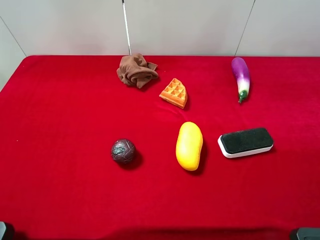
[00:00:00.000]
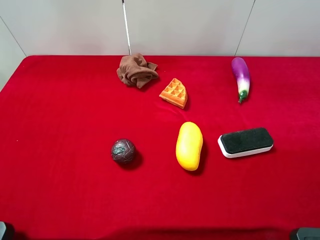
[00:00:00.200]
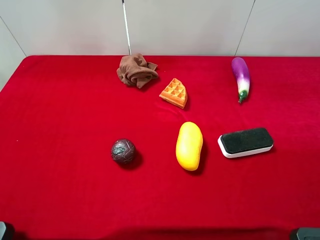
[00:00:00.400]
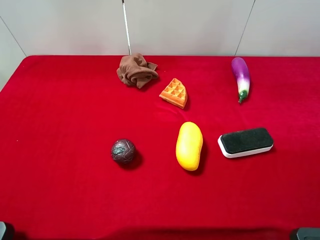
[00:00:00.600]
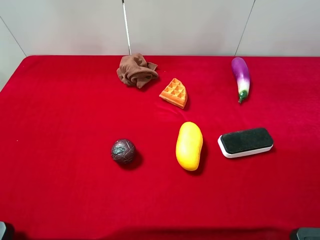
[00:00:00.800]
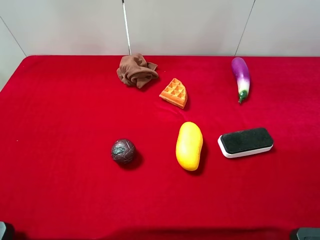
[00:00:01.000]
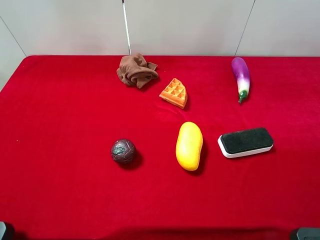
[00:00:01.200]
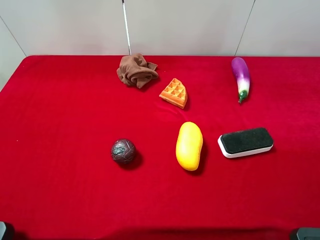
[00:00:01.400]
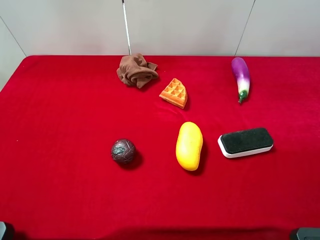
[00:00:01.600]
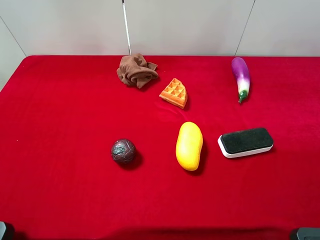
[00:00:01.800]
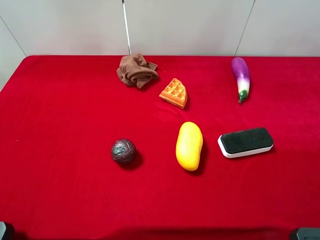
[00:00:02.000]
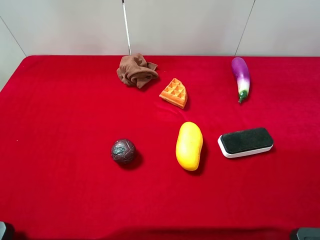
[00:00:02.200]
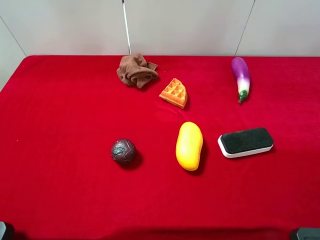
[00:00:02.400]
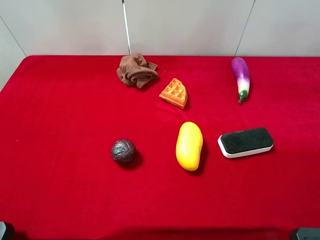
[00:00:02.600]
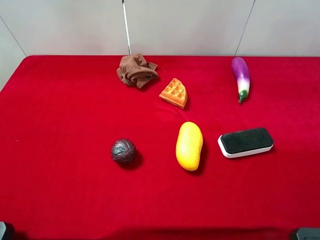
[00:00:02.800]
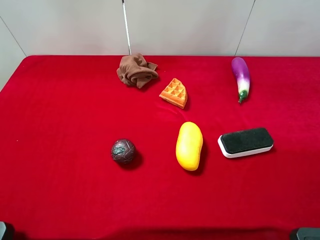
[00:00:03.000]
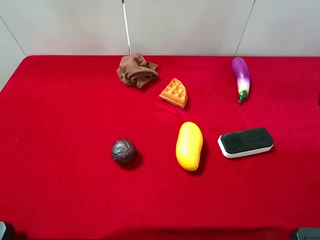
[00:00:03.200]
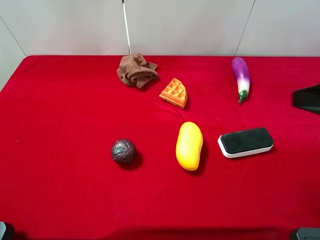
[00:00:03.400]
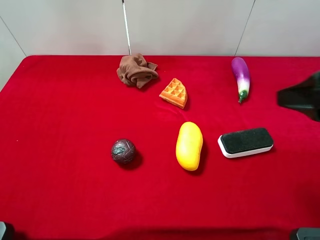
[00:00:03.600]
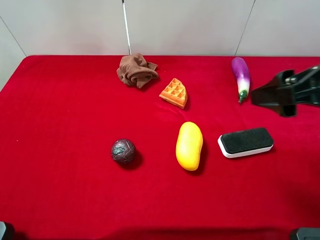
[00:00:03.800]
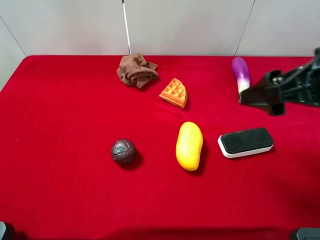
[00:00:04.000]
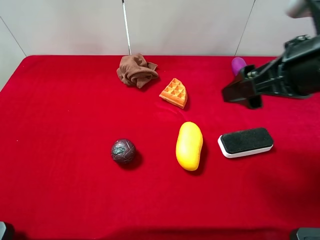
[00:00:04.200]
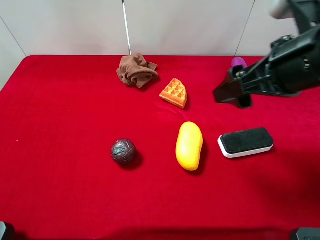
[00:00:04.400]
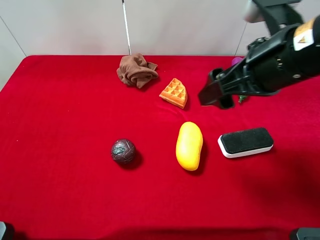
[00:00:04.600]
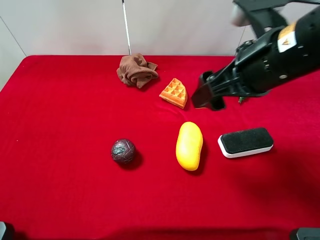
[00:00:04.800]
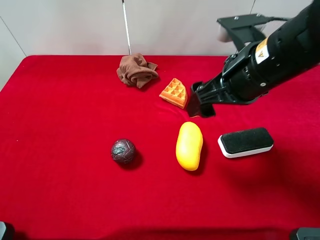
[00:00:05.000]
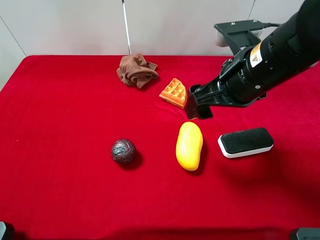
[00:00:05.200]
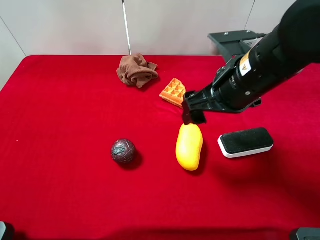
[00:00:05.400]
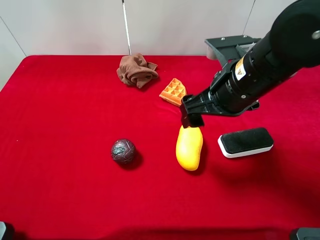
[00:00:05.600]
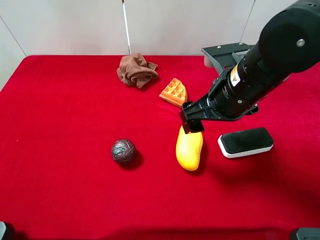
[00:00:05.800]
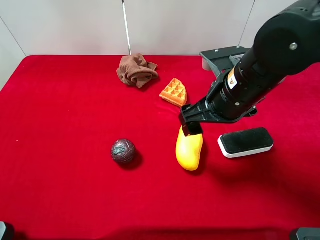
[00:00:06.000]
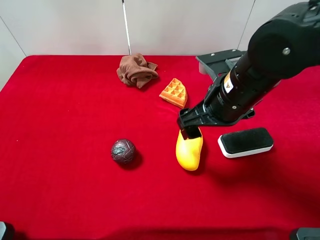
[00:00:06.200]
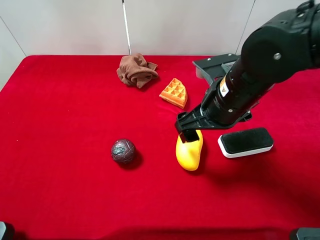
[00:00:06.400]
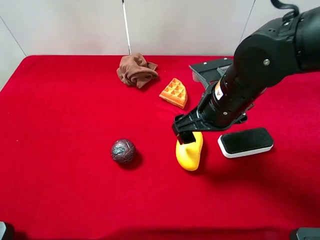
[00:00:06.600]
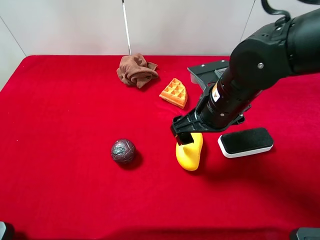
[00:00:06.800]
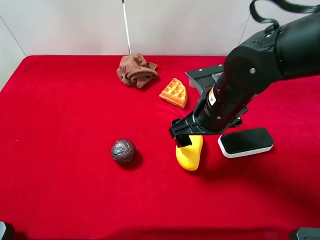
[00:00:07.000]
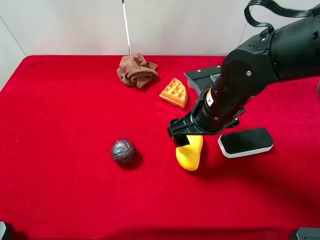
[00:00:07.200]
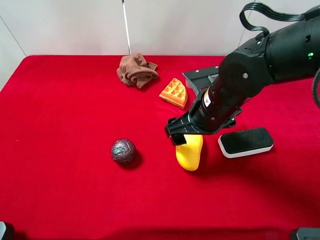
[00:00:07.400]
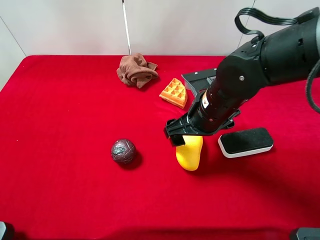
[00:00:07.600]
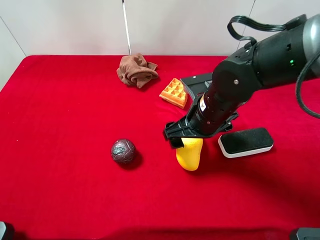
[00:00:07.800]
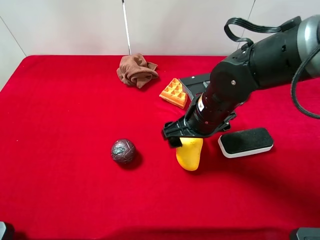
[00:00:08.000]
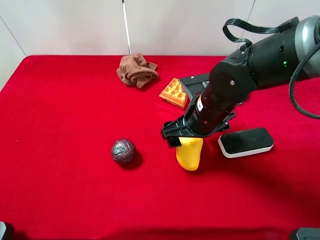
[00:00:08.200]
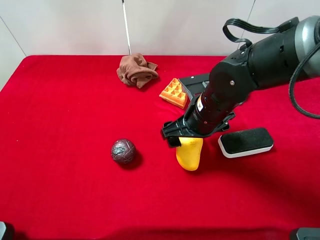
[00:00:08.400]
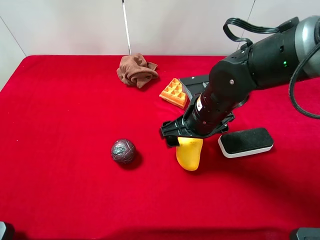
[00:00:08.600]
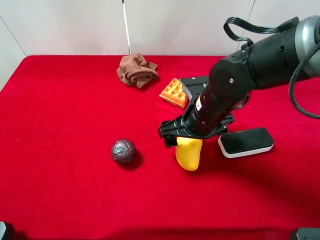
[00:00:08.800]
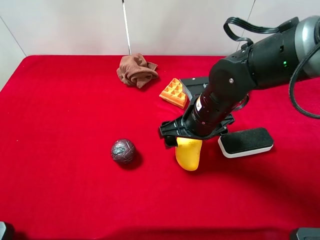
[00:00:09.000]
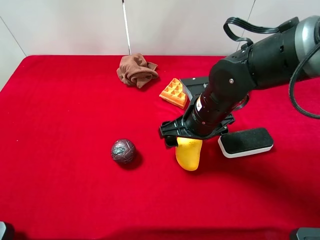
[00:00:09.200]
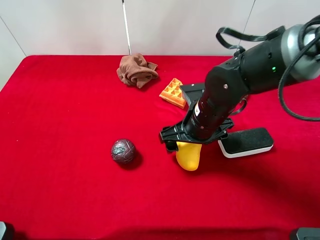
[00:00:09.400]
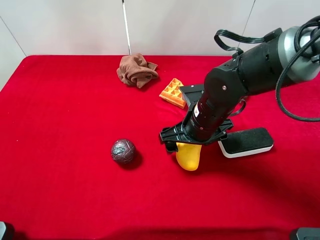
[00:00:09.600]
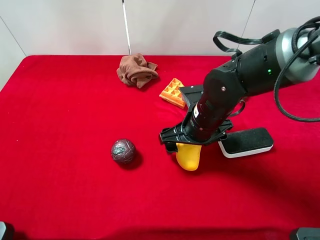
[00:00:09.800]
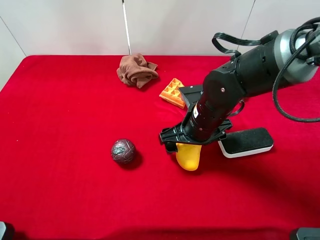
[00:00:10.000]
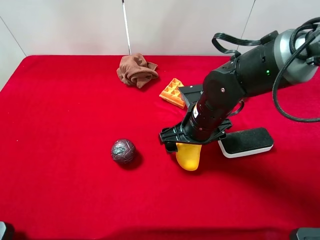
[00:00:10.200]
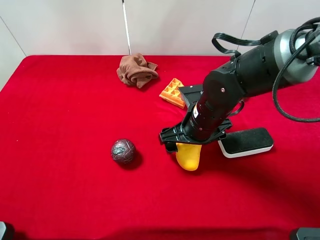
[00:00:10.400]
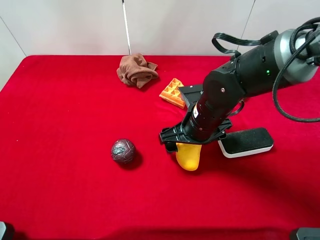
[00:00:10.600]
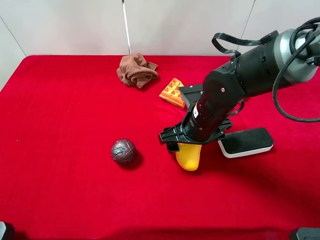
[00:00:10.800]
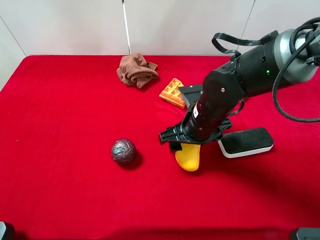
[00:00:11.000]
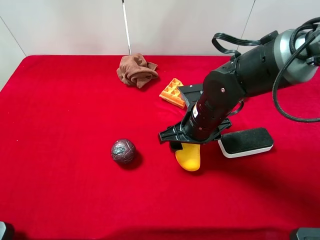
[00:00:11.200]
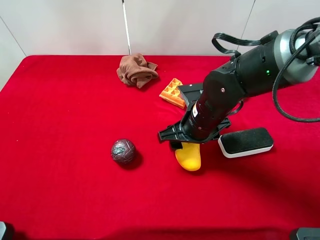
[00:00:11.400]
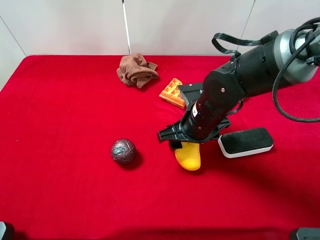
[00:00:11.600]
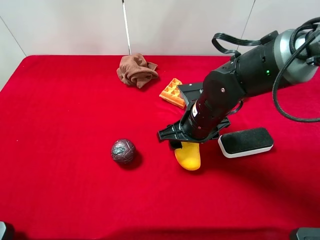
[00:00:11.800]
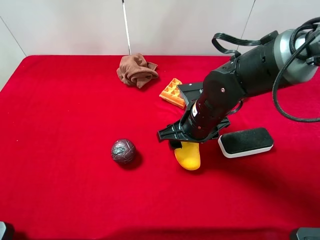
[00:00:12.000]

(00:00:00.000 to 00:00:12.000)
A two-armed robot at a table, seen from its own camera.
Task of the whole recording: the gripper move the object.
Step, 00:00:00.000 - 00:00:11.200: Grasp the mango with the right gripper.
00:00:00.000 - 00:00:01.600: Both grippers stay about where they are.
00:00:03.000 - 00:00:04.400: The right gripper is displaced to the left and forward by roughly 15 cm.
00:00:04.400 - 00:00:06.000: The right gripper moves downward and to the left, about 10 cm.
00:00:06.000 - 00:00:07.600: The right gripper is displaced downward by some 5 cm.
00:00:07.600 - 00:00:10.400: The grippers make only small movements.
00:00:10.400 - 00:00:12.000: The right gripper closes.

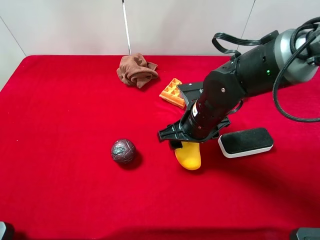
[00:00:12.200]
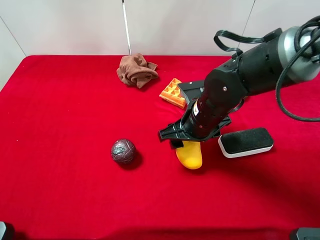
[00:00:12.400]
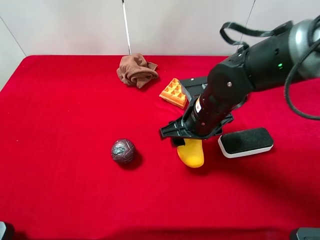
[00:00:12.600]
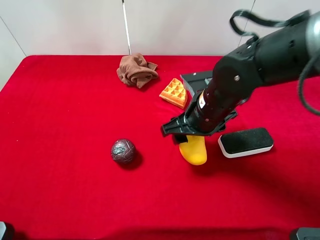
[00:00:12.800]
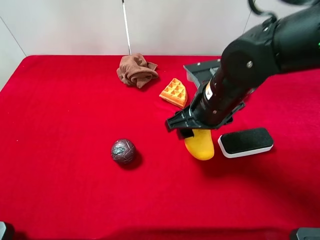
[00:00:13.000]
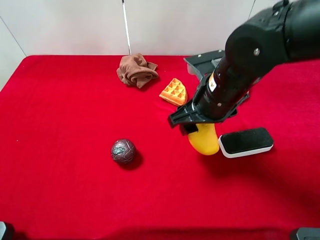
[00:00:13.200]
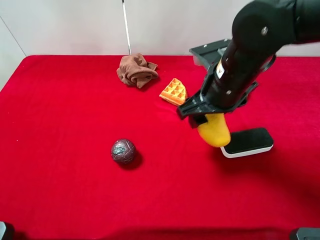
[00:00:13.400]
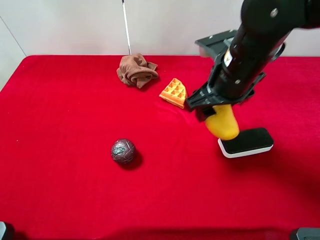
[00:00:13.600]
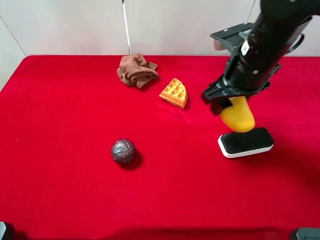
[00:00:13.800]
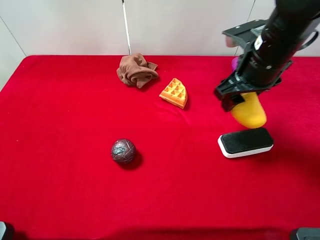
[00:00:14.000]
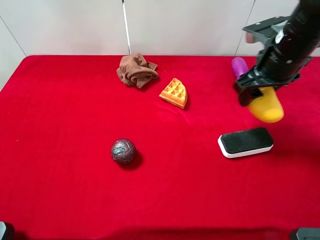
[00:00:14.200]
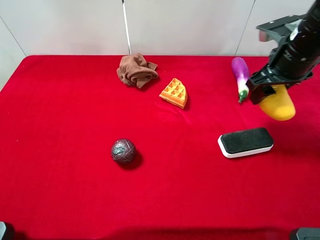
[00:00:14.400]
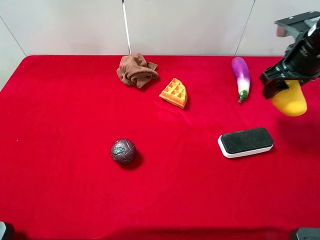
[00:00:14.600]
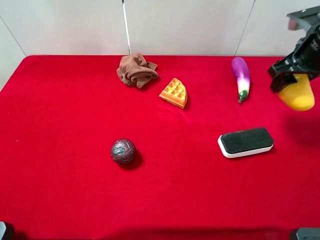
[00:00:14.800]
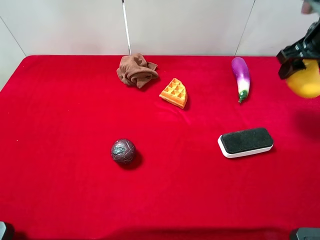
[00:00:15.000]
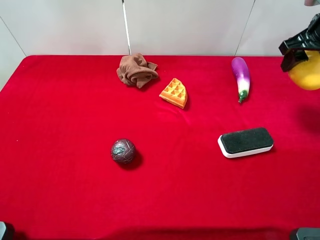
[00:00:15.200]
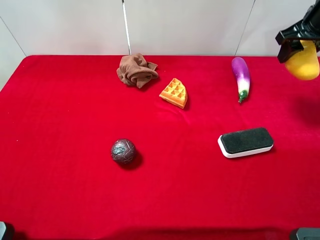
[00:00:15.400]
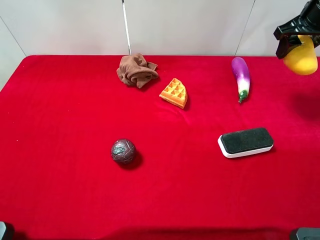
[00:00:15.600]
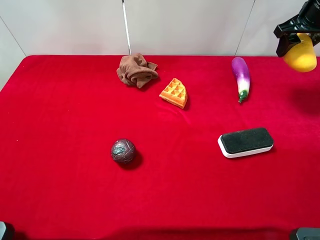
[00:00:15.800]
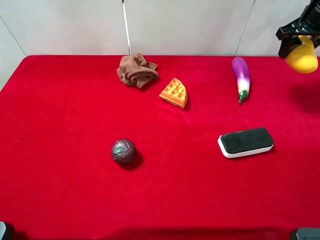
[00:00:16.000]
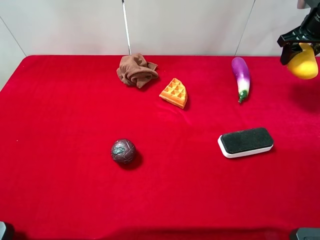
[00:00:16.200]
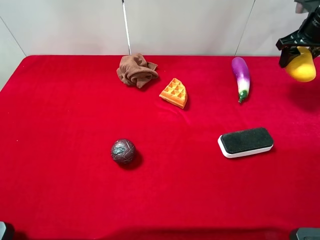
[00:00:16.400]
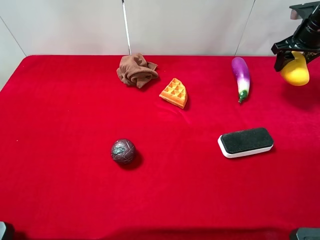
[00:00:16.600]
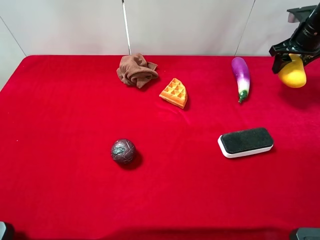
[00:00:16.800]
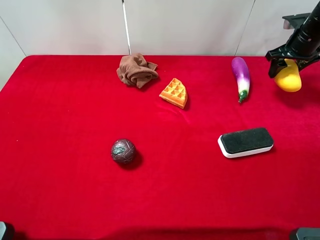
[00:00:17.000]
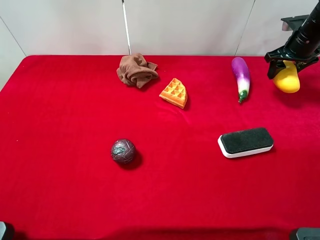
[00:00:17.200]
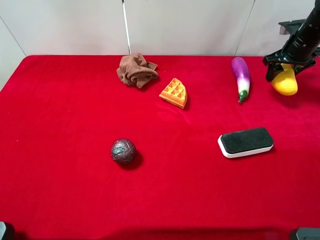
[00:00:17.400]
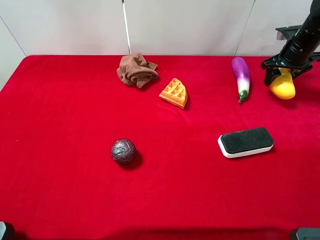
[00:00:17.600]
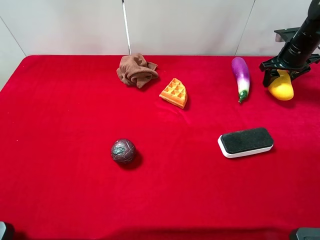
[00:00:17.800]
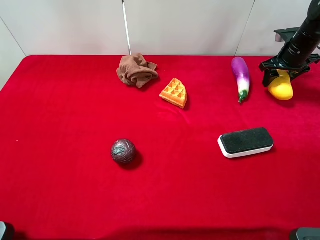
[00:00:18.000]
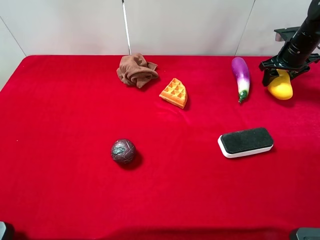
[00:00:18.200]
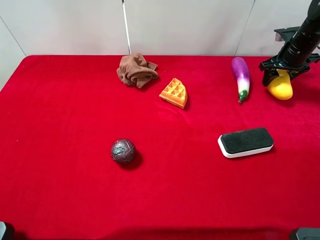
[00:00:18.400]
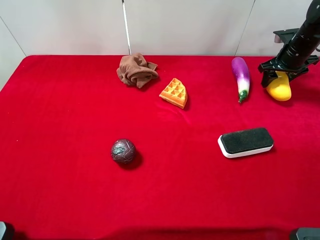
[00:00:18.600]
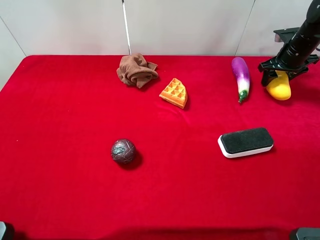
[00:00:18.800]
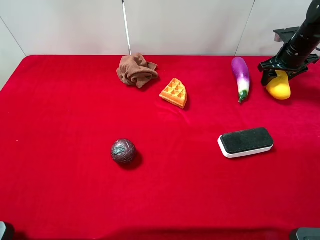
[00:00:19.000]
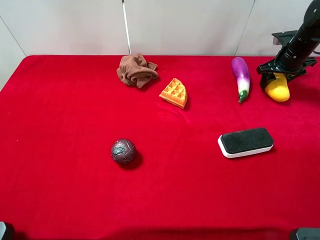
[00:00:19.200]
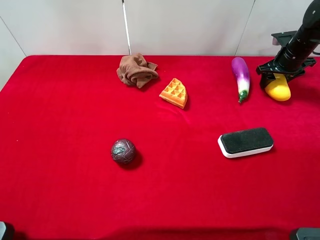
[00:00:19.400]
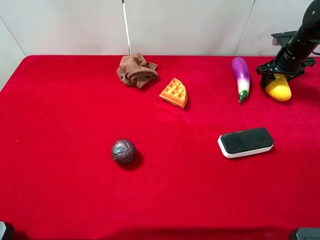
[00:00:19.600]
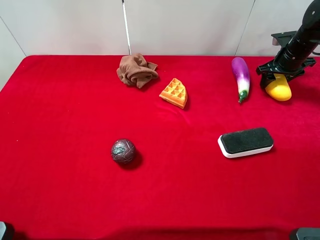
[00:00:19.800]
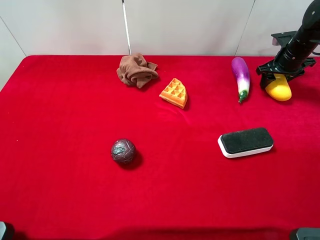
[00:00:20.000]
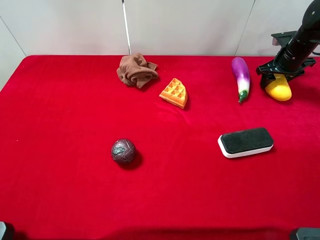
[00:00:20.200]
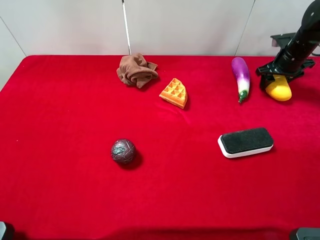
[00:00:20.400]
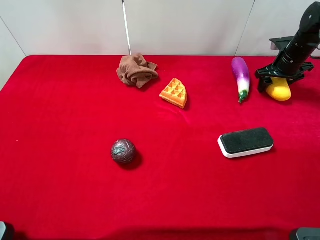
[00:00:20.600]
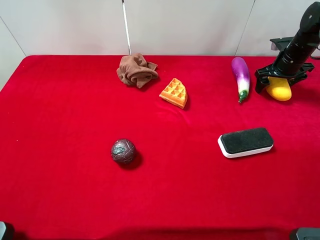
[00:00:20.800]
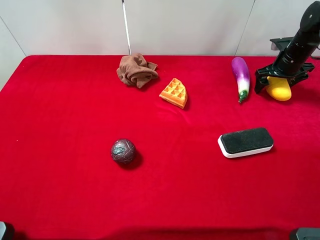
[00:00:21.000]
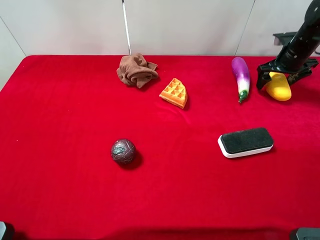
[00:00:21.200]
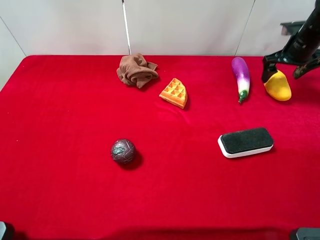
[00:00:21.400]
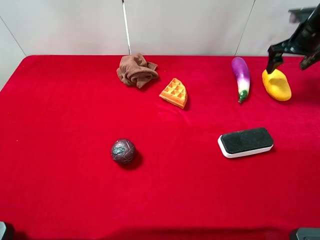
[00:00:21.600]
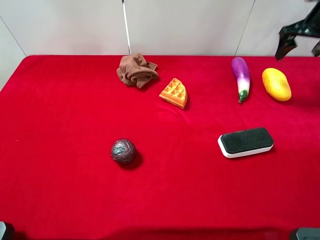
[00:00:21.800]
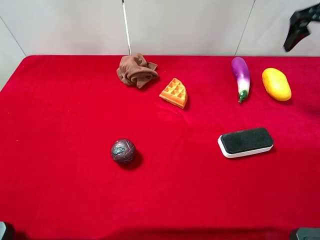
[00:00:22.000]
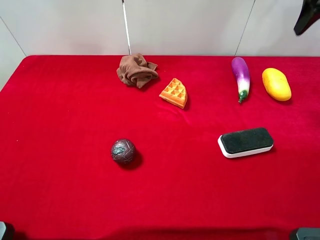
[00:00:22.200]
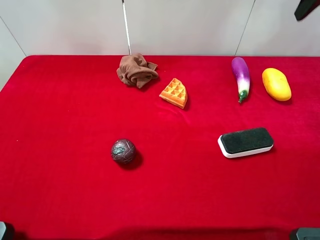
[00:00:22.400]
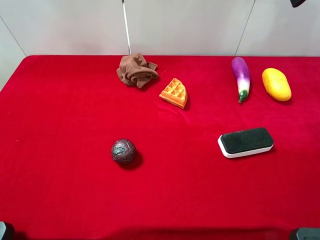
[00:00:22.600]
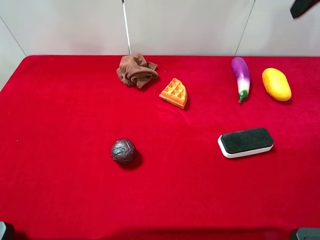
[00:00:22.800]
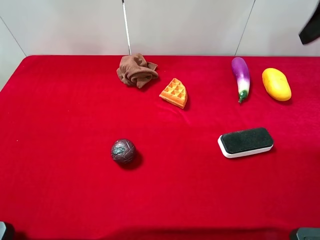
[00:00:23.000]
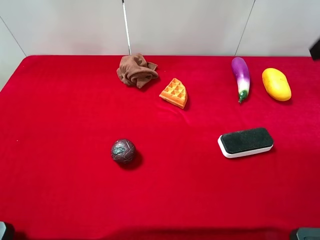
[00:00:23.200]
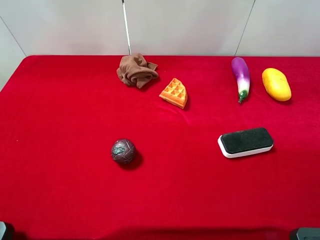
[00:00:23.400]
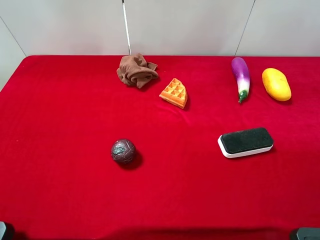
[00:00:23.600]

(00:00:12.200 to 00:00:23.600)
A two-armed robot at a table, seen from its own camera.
Task of the whole recording: the gripper move the object.
Step, 00:00:12.200 - 00:00:21.600: Place the mango on the table with the right gripper.
00:00:12.200 - 00:00:13.600: The right gripper goes roughly 10 cm upward.
00:00:13.600 - 00:00:15.000: The right gripper travels to the right and forward by some 20 cm.
00:00:15.000 - 00:00:16.400: The right gripper travels forward by approximately 10 cm.
00:00:16.400 - 00:00:17.800: The right gripper heads downward, covering roughly 5 cm.
00:00:17.800 - 00:00:19.400: The grippers move only a little.
00:00:19.400 - 00:00:20.800: The right gripper opens its fingers.
00:00:20.800 - 00:00:22.200: The right gripper is displaced upward and backward by approximately 25 cm.
00:00:22.200 - 00:00:23.600: The right gripper heads backward, covering about 25 cm.
